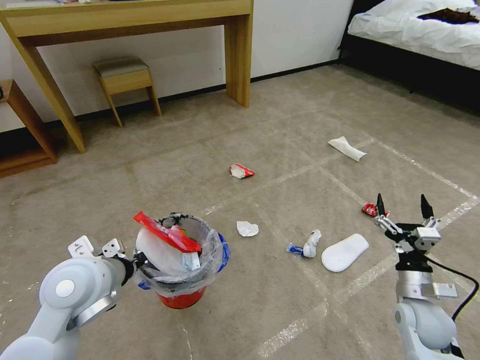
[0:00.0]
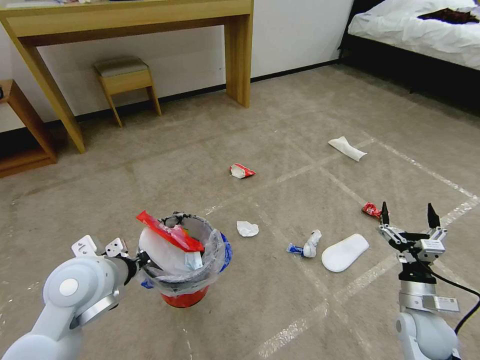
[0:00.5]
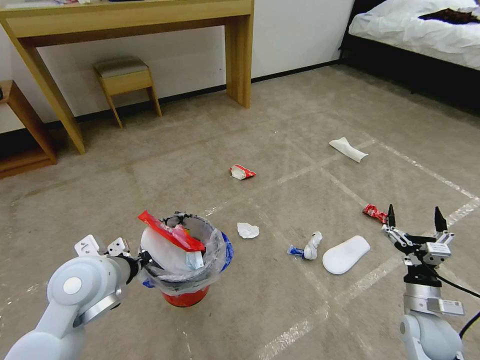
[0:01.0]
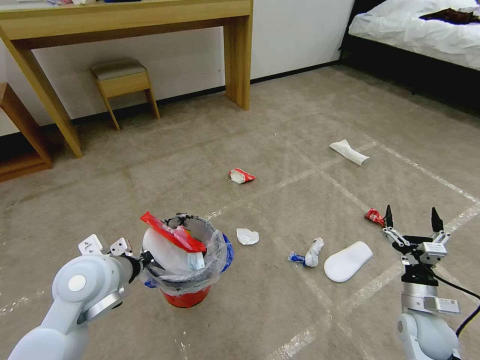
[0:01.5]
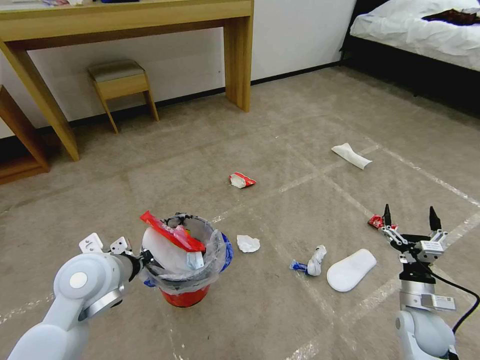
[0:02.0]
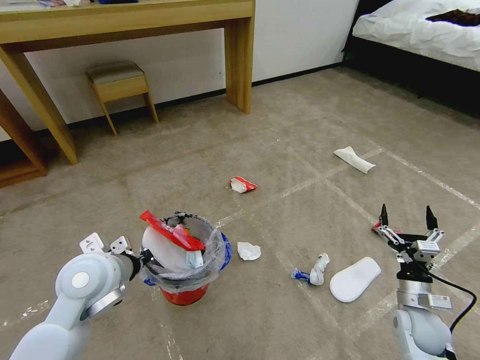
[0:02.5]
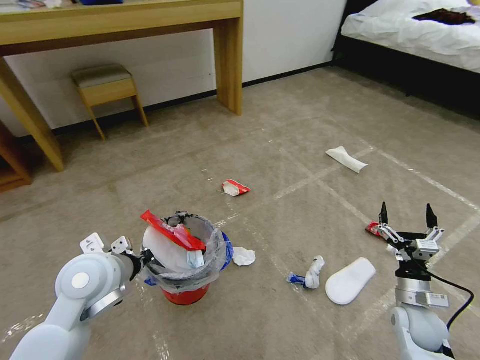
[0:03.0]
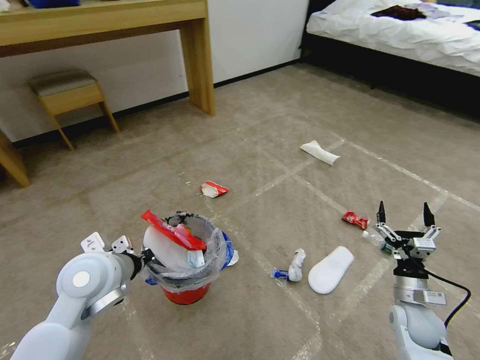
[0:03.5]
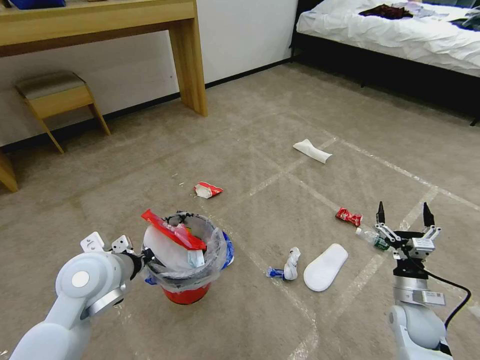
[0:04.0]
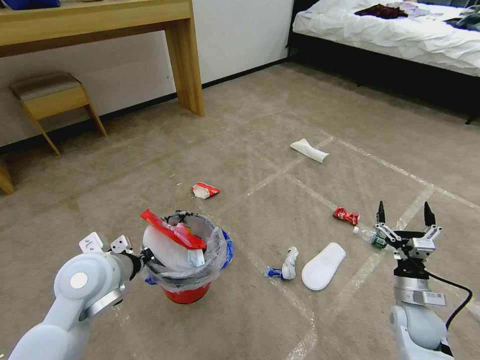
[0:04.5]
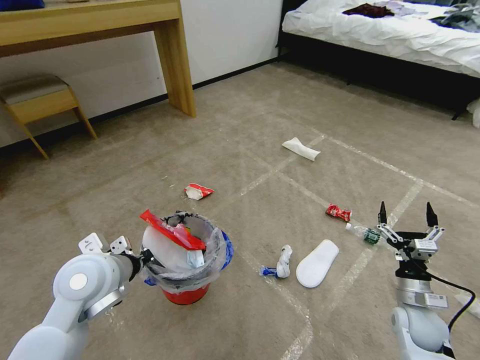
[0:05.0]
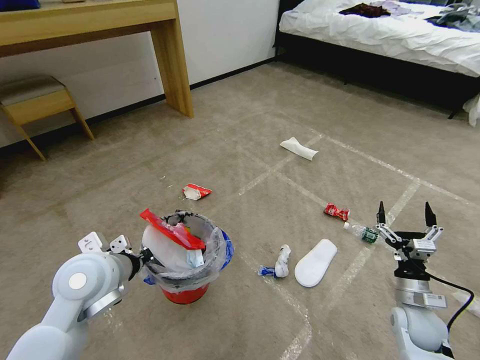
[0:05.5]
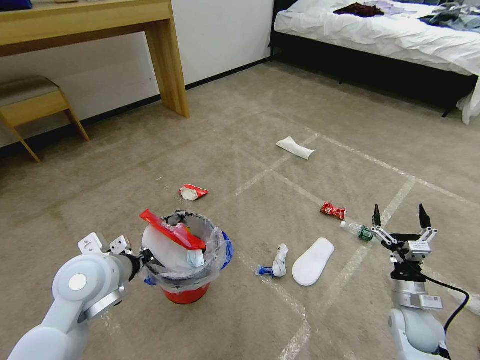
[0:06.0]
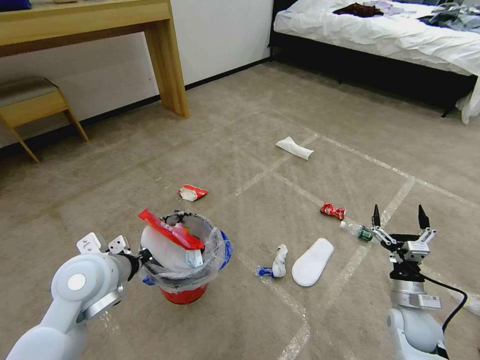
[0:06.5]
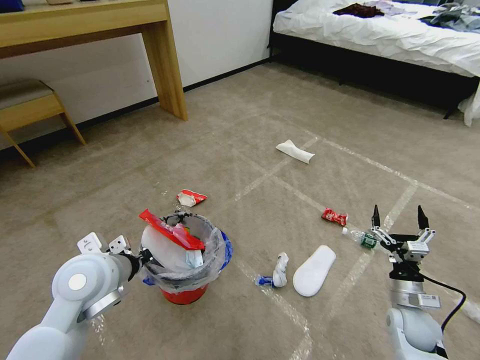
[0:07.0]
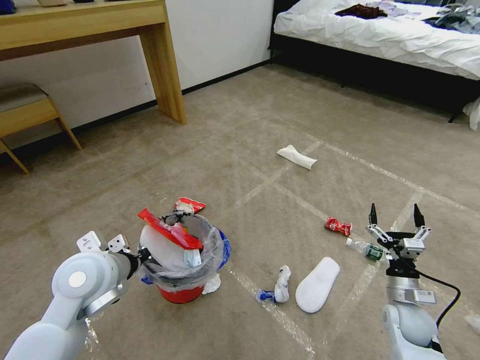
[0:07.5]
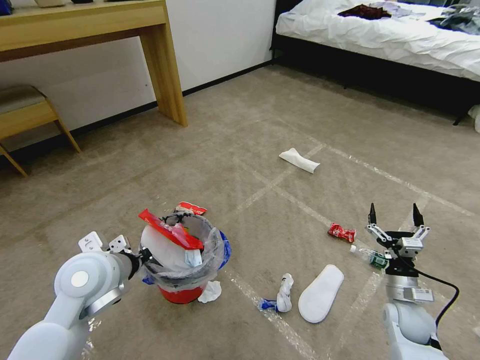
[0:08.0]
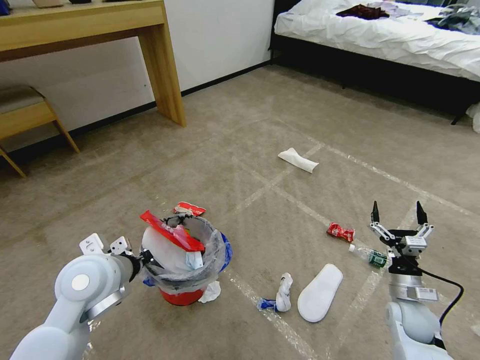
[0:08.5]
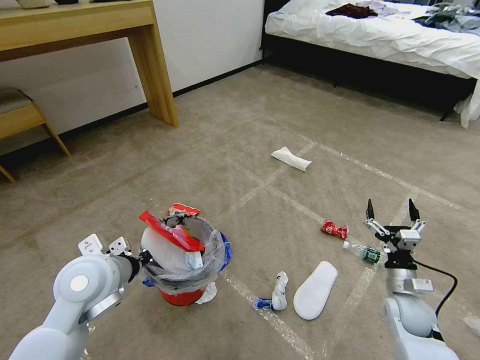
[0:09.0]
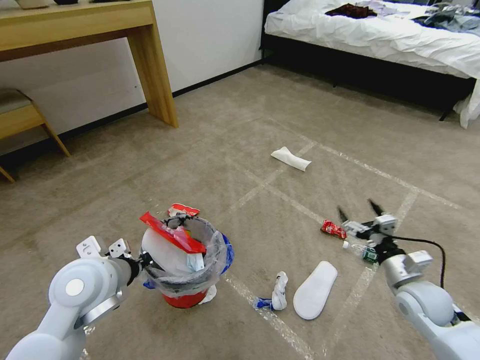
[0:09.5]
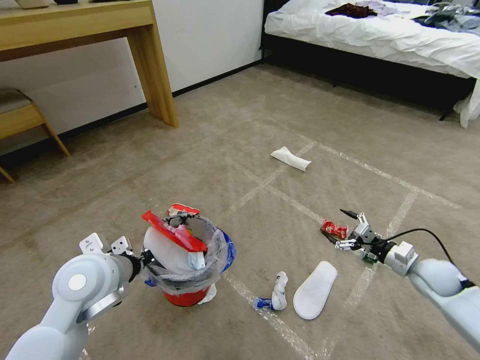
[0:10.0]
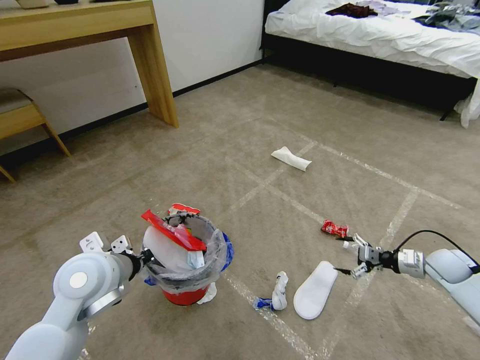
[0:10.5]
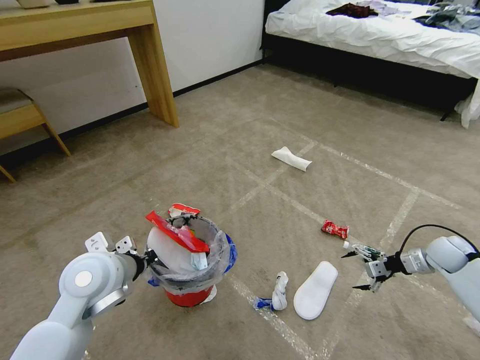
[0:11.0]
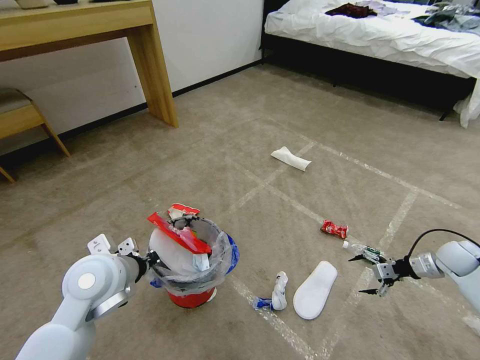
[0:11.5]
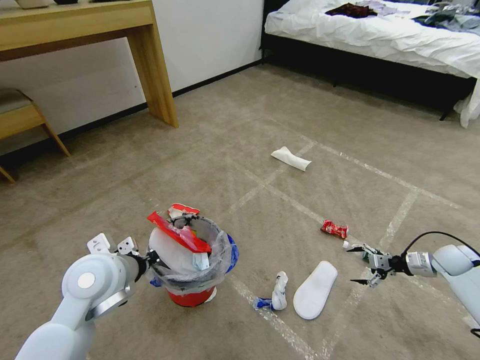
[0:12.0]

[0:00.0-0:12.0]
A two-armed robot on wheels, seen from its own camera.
Task of the whole recording: Pick up the trash bin and place the garbage on the floor into it.
0:04.0 to 0:06.0: Both grippers stay about where they are.
0:08.0 to 0:10.0: The right gripper is displaced to the right, forward and upward by roughly 10 cm.
0:10.0 to 0:12.0: The right gripper heads to the right and forward, covering roughly 15 cm.

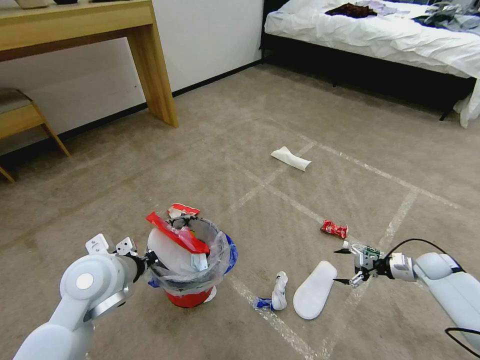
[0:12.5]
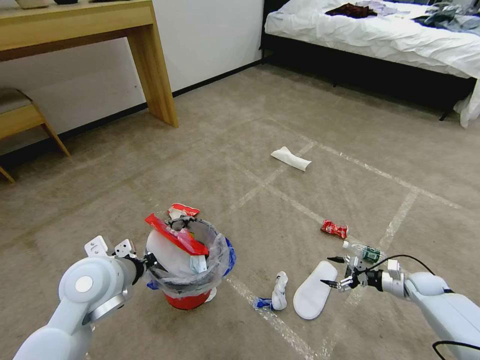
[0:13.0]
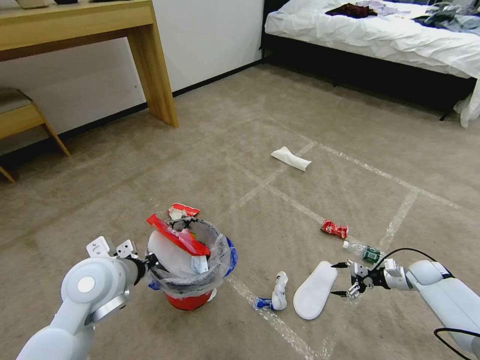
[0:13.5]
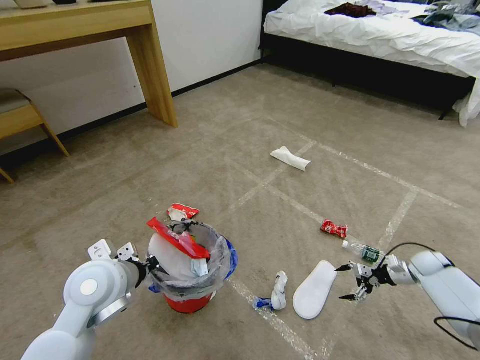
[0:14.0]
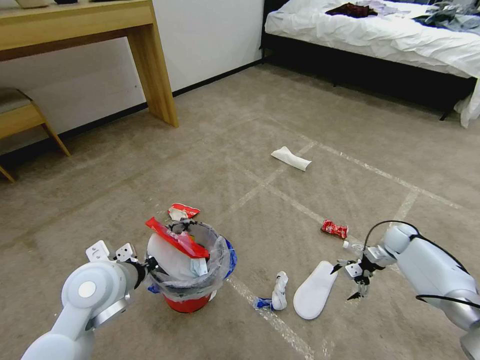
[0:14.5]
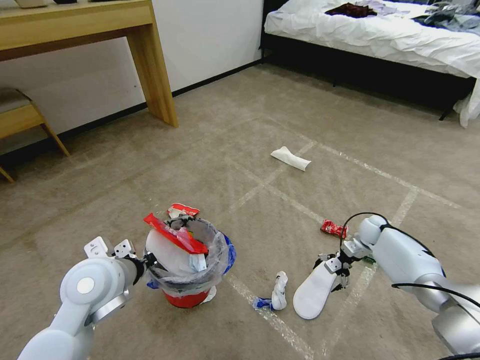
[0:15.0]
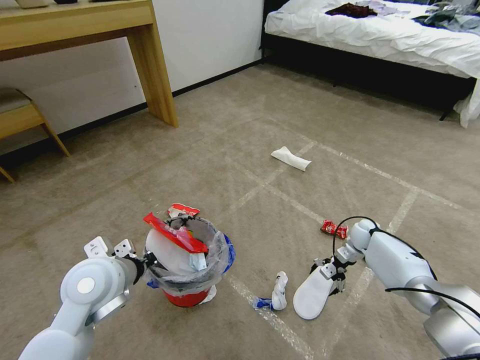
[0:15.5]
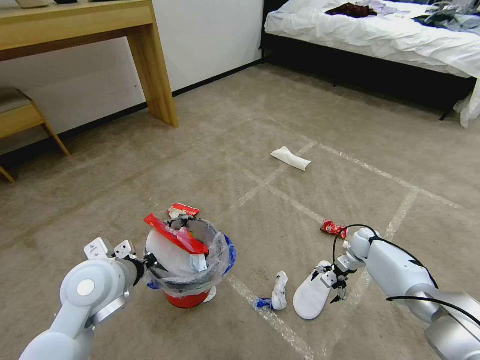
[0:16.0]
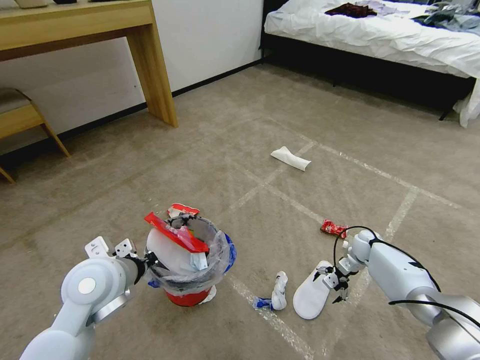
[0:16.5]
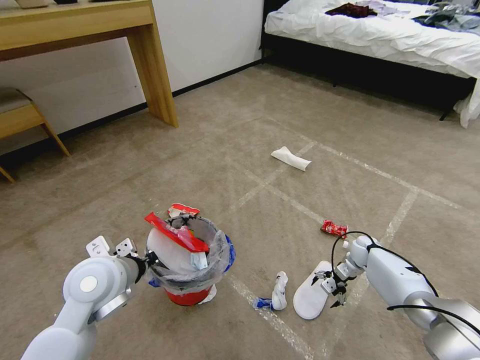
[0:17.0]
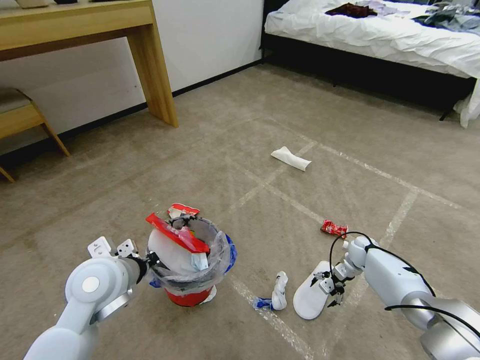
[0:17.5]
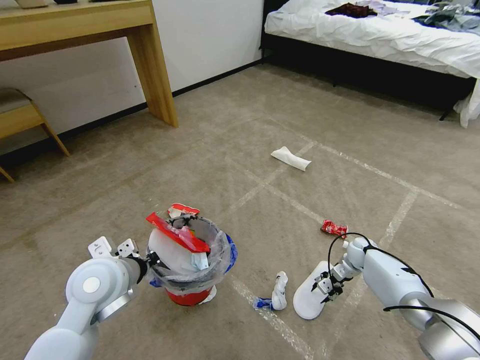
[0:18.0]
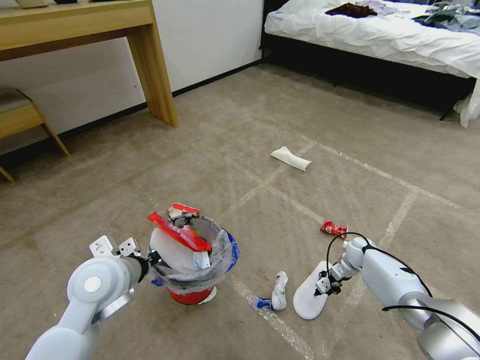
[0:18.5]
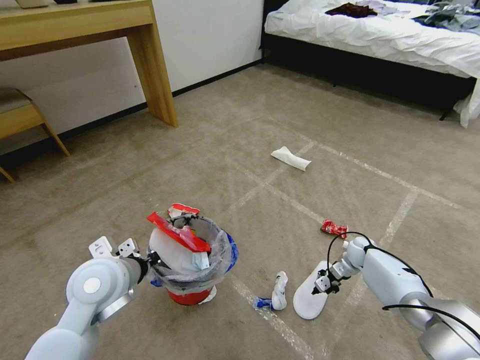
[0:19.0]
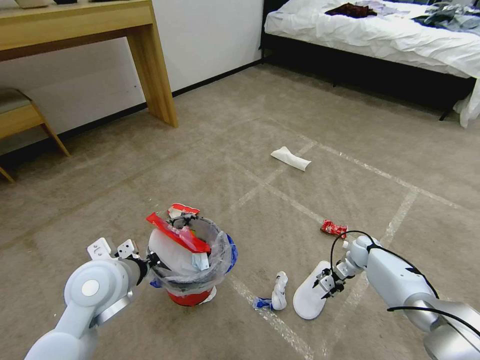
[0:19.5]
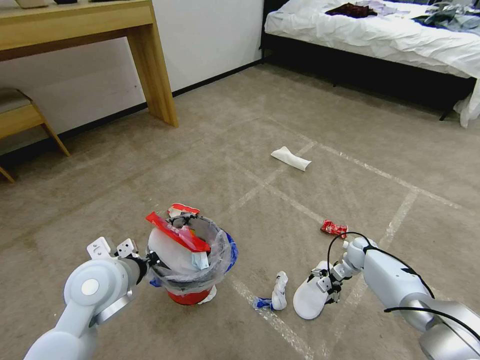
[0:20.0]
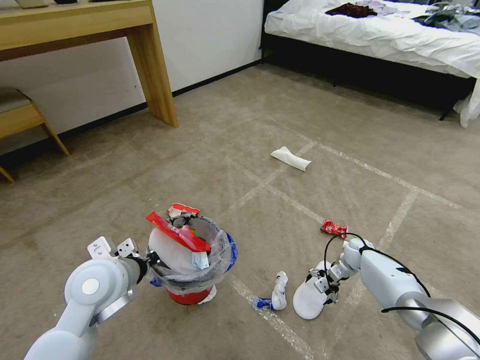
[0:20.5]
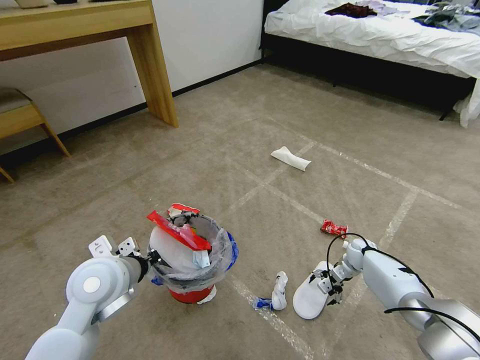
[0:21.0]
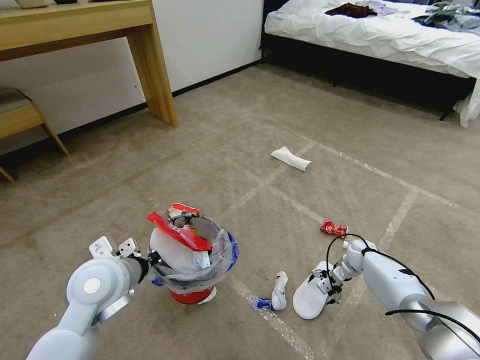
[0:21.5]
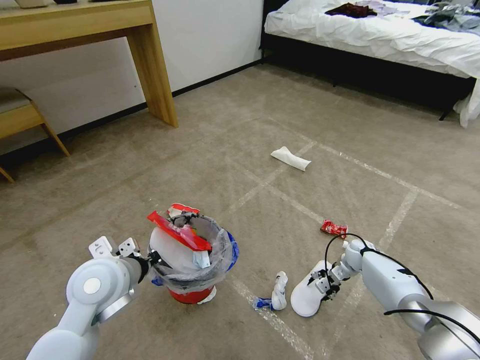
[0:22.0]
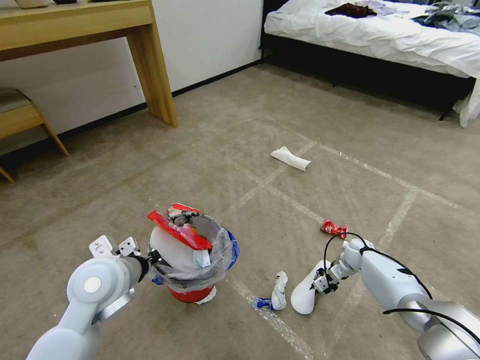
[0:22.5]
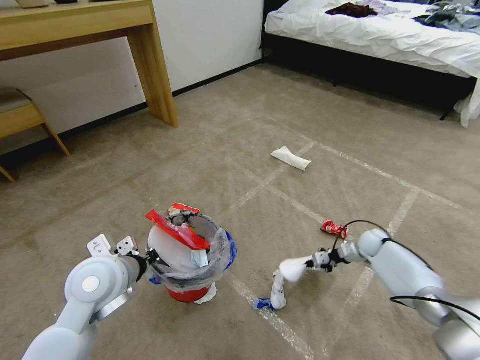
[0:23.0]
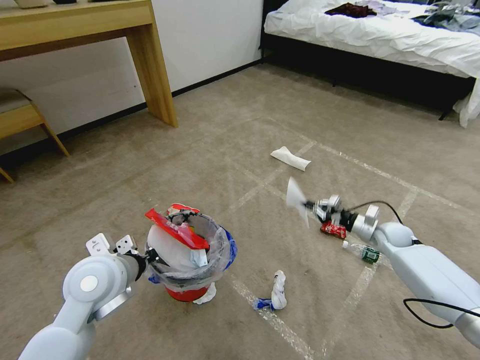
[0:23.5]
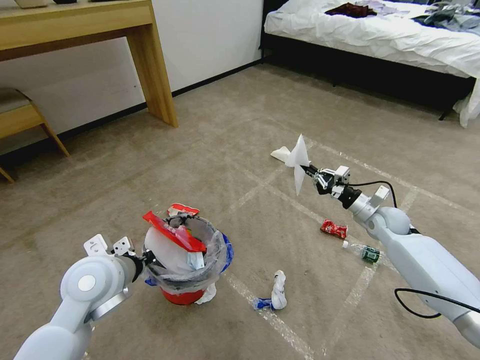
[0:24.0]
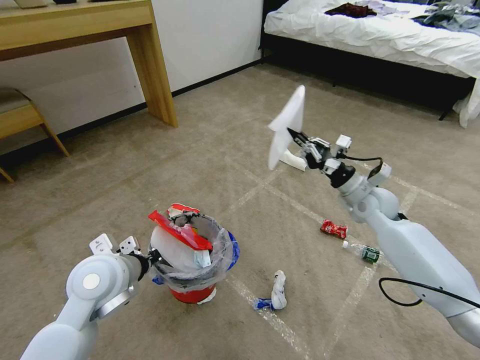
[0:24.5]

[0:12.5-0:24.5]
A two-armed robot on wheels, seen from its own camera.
Task of the whole recording: Pick up the trash bin and place the garbage on the floor into it.
0:12.5 to 0:14.5: The right gripper goes approximately 10 cm forward and to the left.
0:14.5 to 0:16.5: The right gripper is displaced to the left by about 10 cm.
0:16.5 to 0:18.5: The right gripper closes.
0:18.5 to 0:20.5: The right gripper opens.
0:20.5 to 0:22.5: The right gripper closes up.
0:22.5 to 0:24.5: The right gripper moves upward, roughly 25 cm.

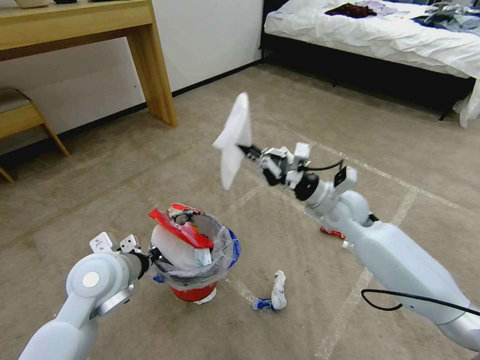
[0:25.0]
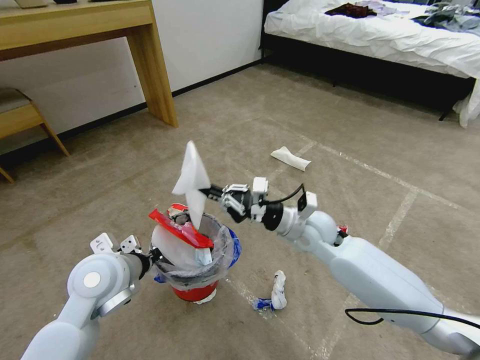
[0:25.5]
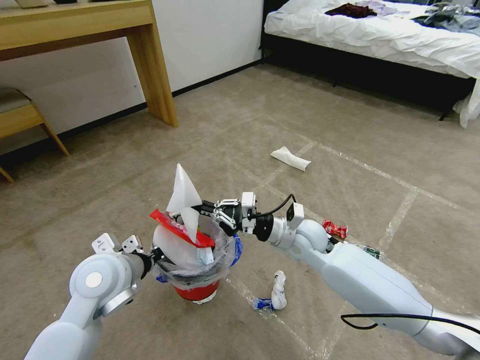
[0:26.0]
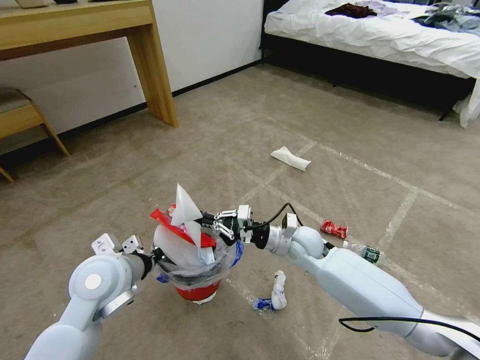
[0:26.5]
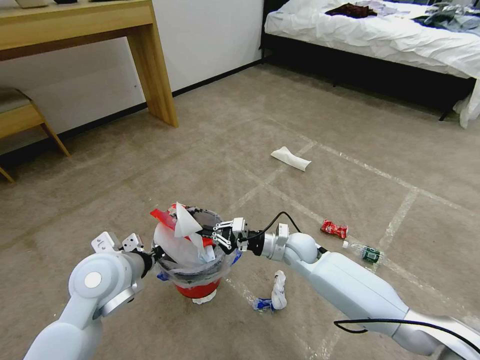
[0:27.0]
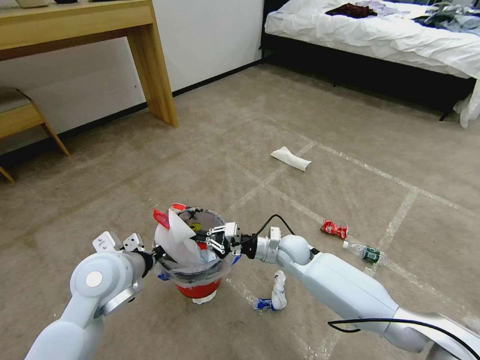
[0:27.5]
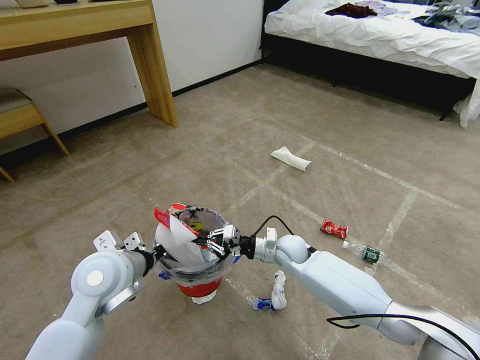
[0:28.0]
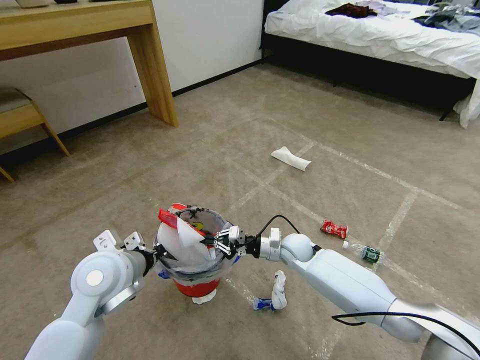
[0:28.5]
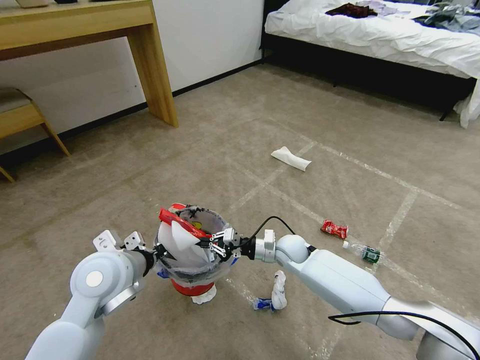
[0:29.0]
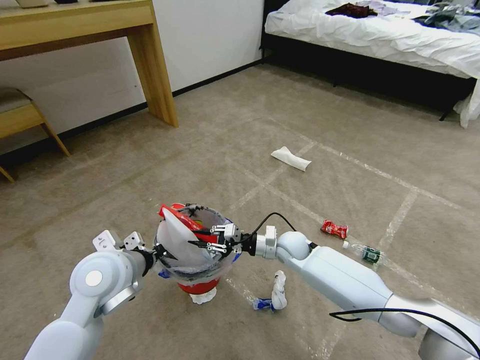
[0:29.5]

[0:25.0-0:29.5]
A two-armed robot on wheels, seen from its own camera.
Task of the whole recording: Pick up the trash bin and place the garbage on the floor into it.
0:25.0 to 0:27.0: The right gripper goes roughly 15 cm downward and to the left.
0:27.0 to 0:29.5: There are only small adjustments of the grippers.
